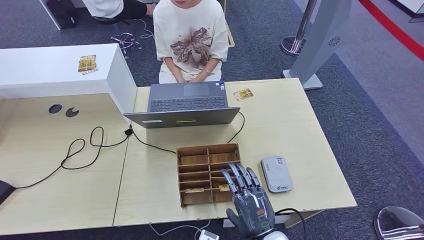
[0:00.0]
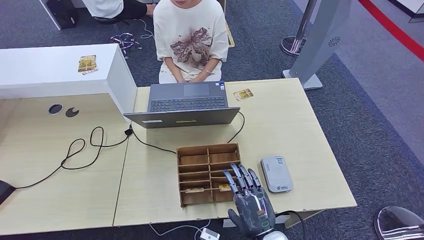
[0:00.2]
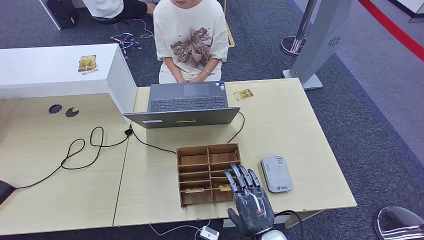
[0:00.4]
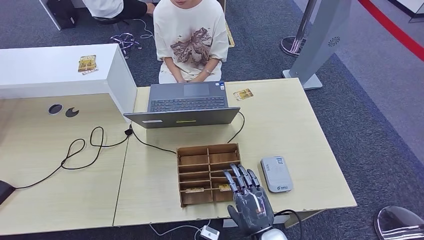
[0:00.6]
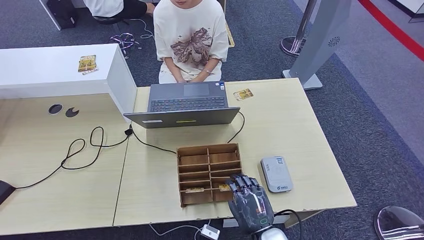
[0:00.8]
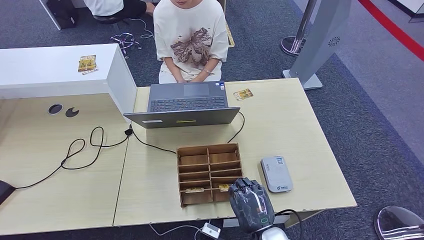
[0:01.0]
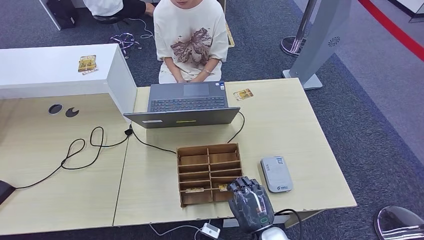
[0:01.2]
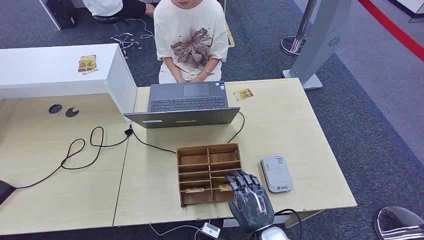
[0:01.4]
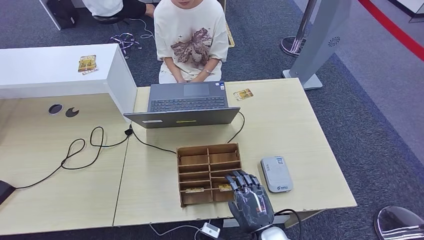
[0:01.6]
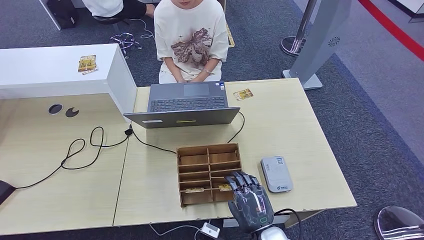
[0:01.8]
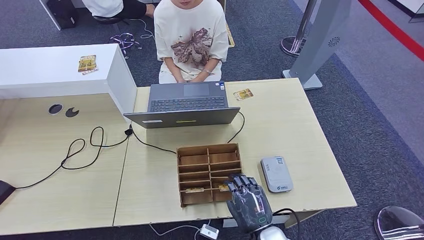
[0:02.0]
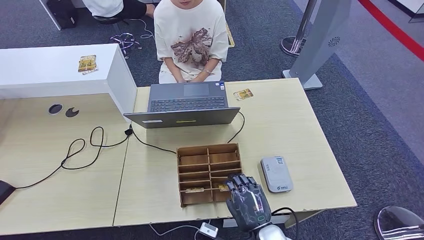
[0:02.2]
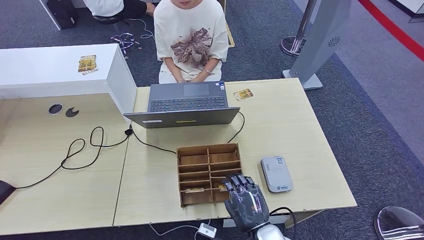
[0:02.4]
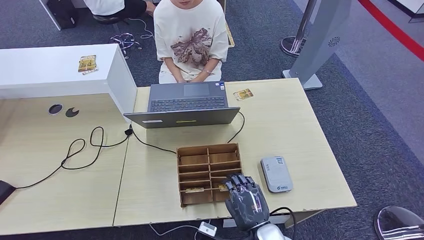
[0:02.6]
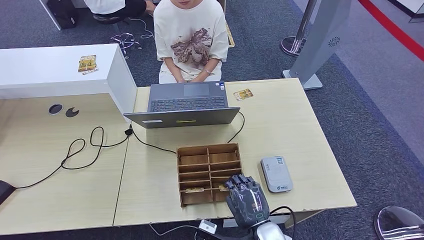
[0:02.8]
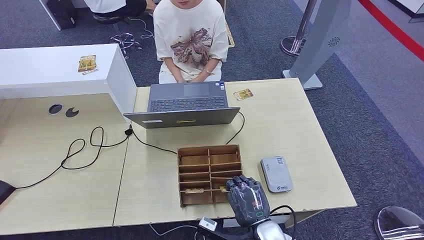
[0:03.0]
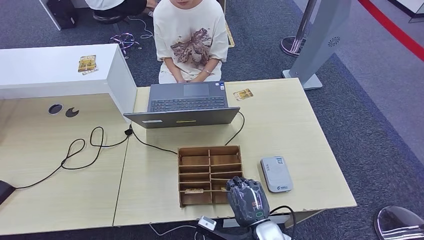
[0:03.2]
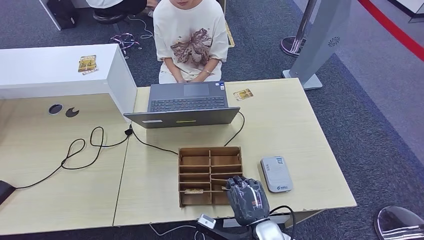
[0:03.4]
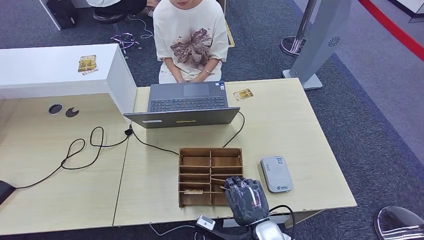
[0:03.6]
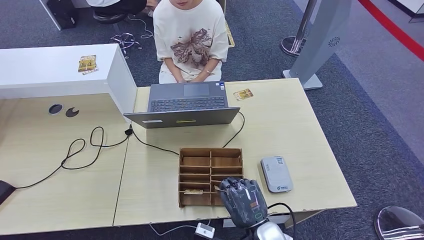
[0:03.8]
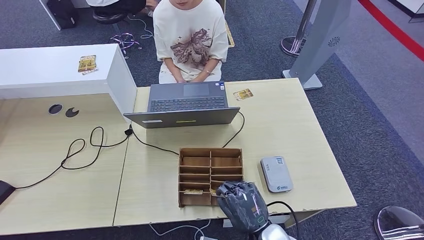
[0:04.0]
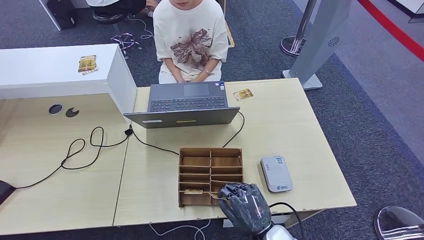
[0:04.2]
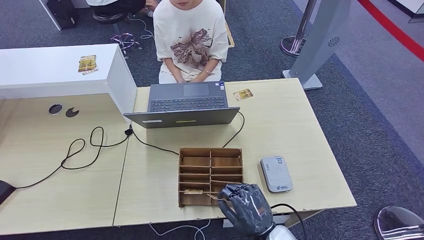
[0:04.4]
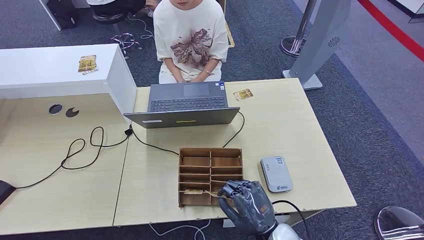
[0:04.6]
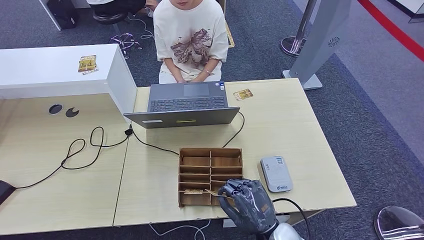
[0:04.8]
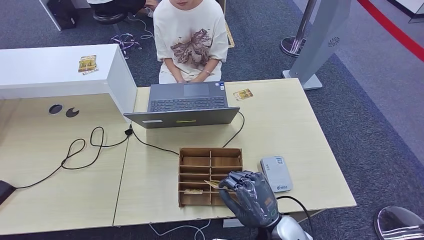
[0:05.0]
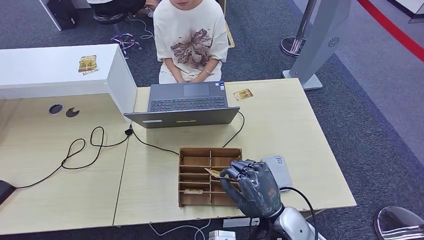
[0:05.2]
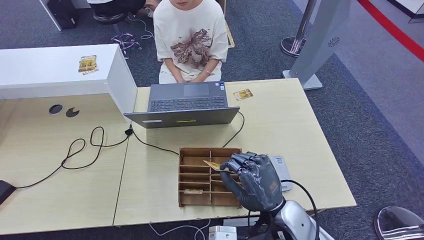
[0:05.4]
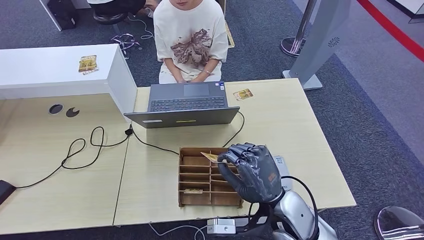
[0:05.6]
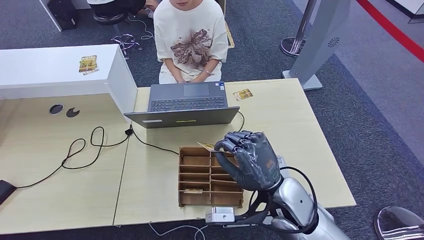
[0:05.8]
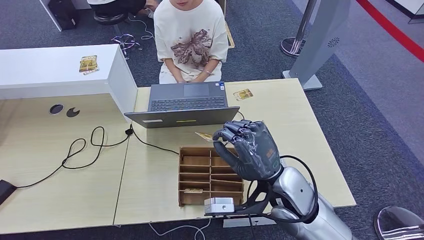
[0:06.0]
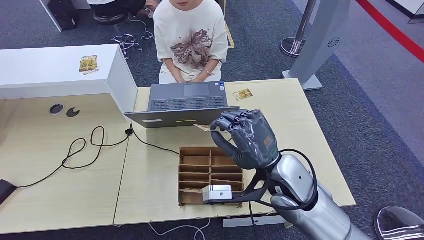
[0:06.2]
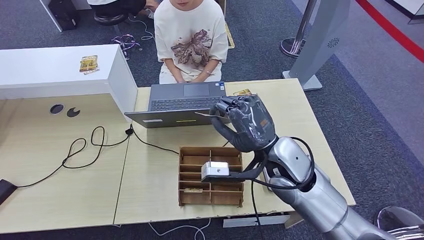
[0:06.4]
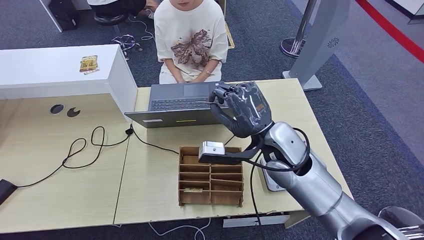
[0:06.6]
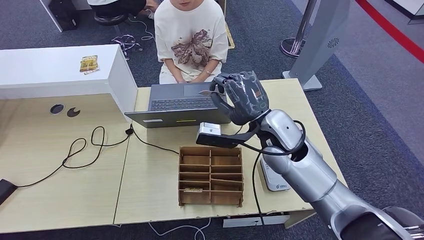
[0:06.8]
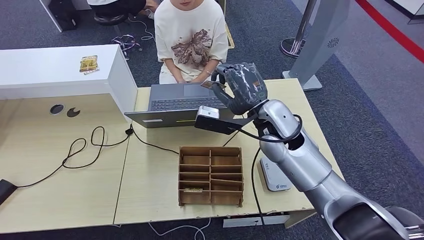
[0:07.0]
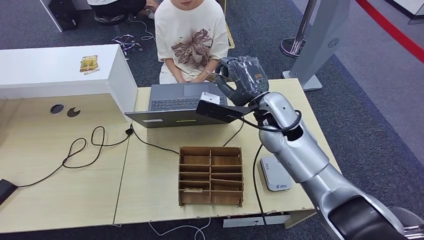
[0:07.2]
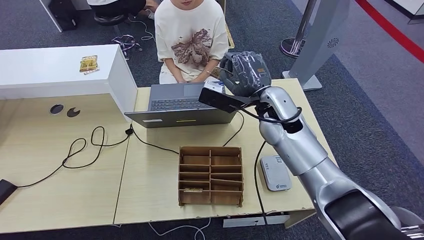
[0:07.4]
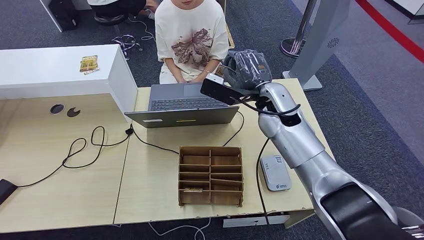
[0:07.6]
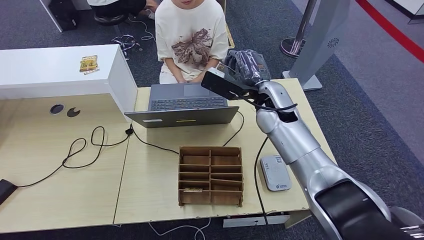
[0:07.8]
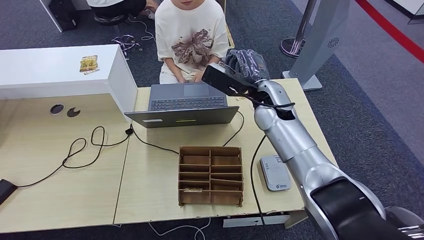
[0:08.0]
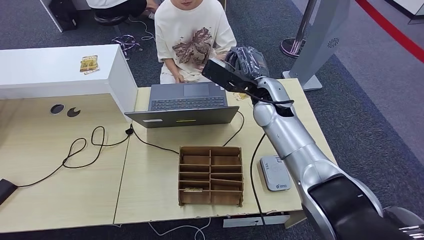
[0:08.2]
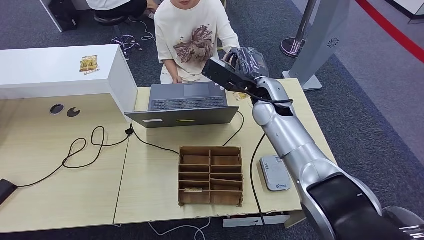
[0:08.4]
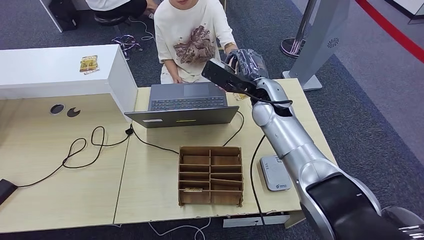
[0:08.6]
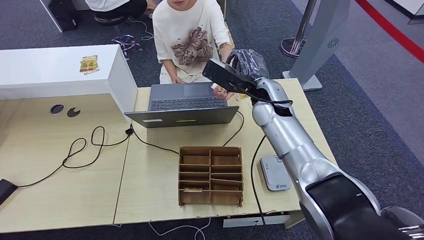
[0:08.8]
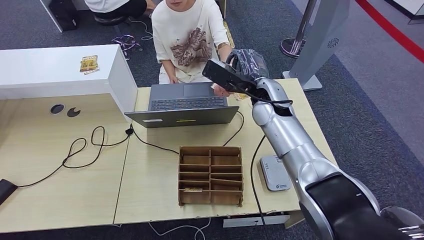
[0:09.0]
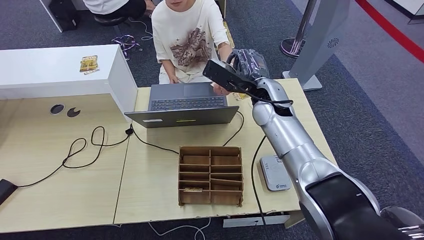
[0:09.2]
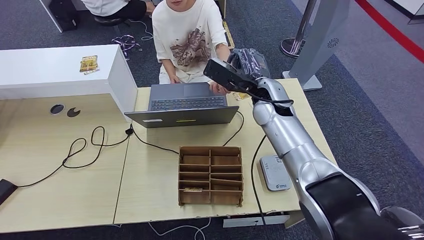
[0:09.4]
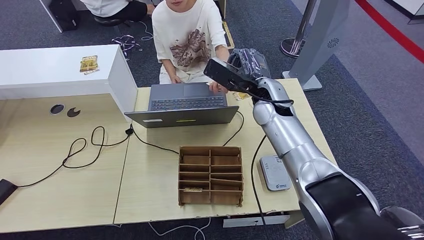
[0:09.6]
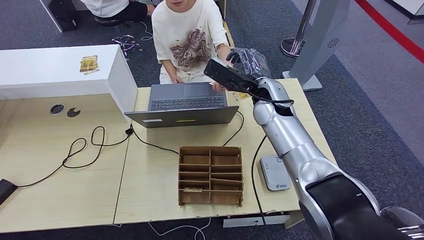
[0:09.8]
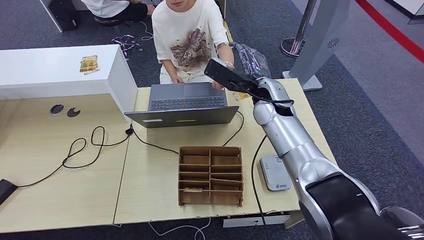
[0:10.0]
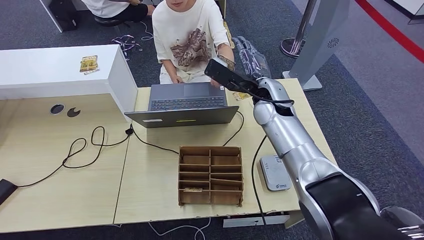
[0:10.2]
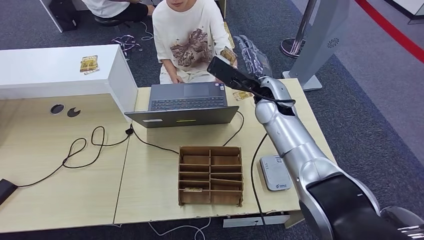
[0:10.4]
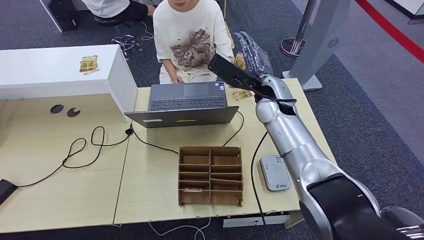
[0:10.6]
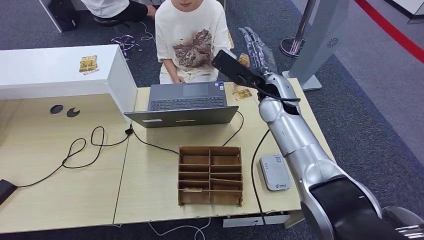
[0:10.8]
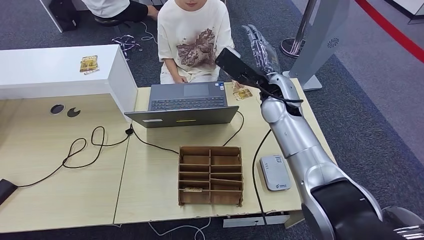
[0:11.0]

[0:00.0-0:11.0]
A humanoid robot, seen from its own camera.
Step, 0:01.6 to 0:06.2: Pick up the room key from the key card box.
Step, 0:06.4 to 0:11.0: Hand the room key to the person.
0:00.0 to 0:03.2: The hands move only a little.
0:04.8 to 0:06.2: The right hand goes some 15 cm forward and upward.
0:06.2 to 0:07.8: The right hand travels forward by about 15 cm.
0:07.8 to 0:11.0: There are only small adjustments of the hands.
